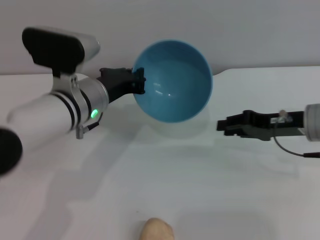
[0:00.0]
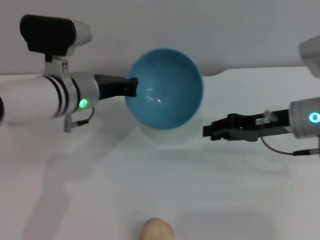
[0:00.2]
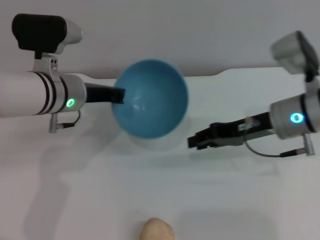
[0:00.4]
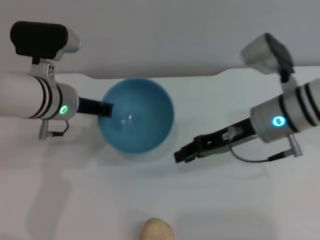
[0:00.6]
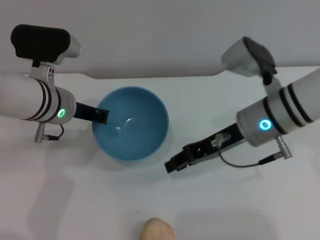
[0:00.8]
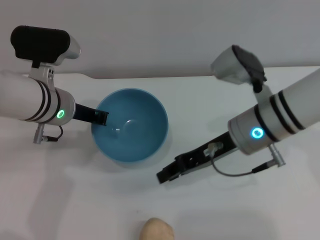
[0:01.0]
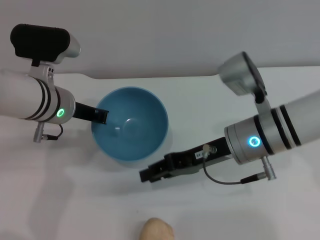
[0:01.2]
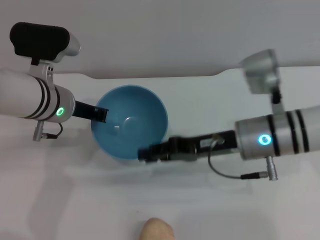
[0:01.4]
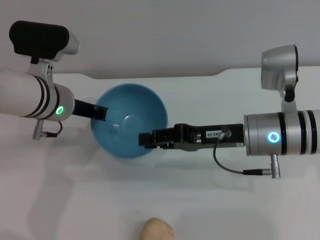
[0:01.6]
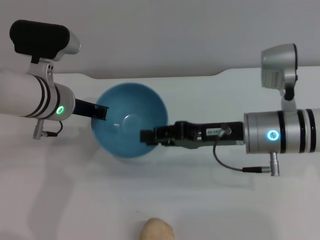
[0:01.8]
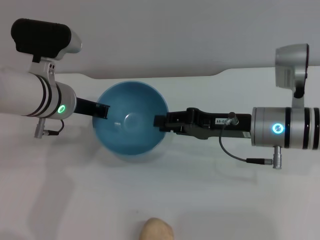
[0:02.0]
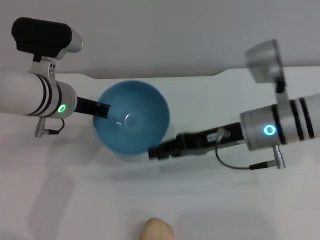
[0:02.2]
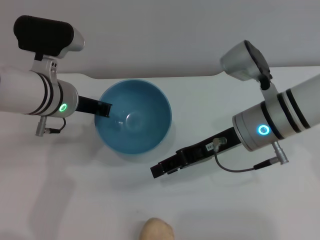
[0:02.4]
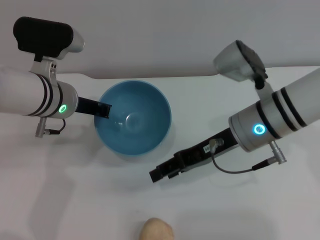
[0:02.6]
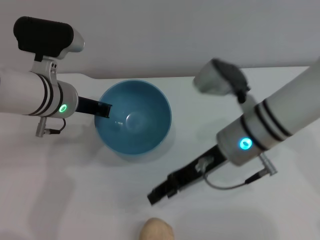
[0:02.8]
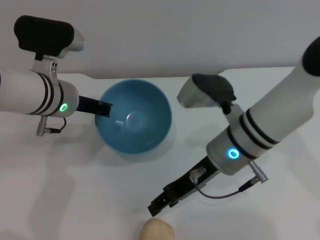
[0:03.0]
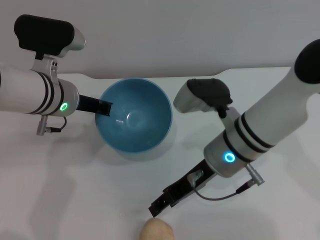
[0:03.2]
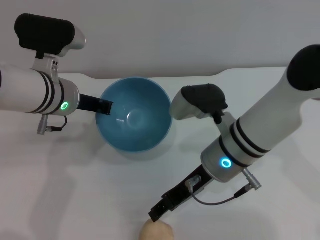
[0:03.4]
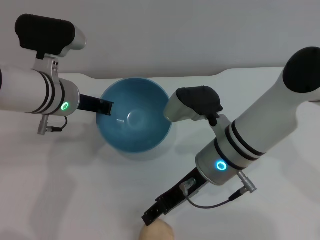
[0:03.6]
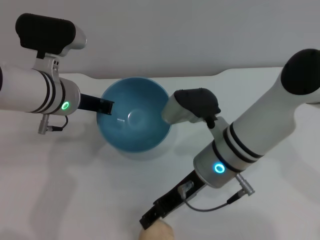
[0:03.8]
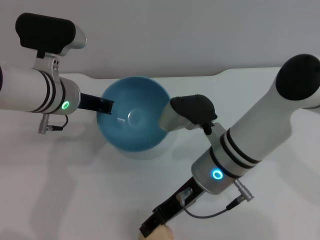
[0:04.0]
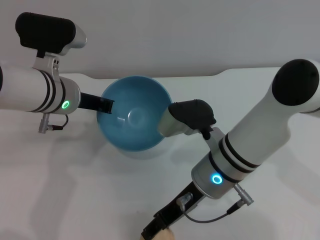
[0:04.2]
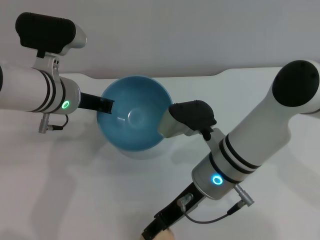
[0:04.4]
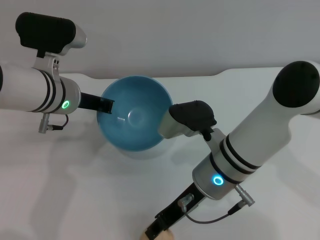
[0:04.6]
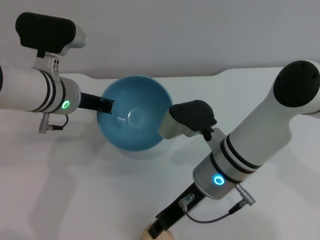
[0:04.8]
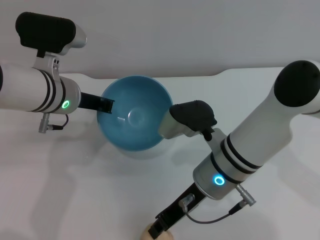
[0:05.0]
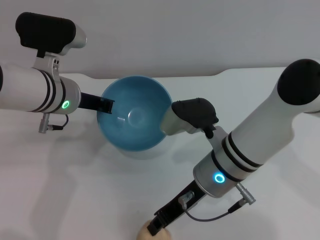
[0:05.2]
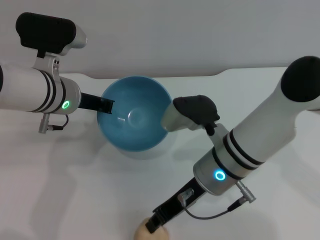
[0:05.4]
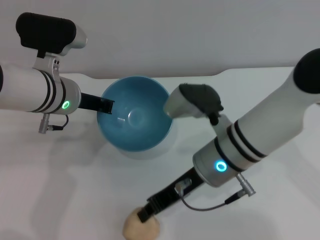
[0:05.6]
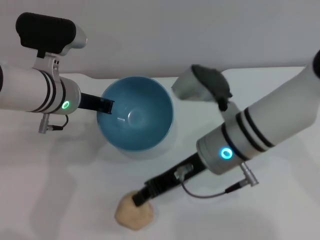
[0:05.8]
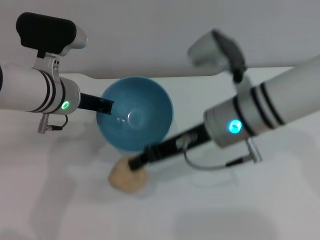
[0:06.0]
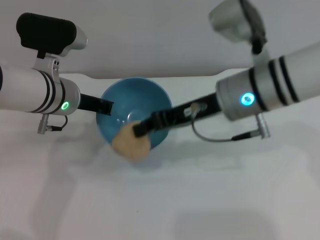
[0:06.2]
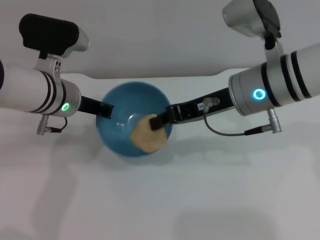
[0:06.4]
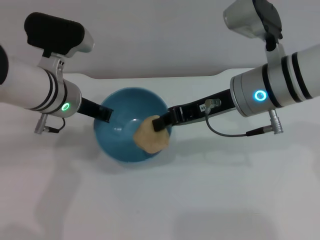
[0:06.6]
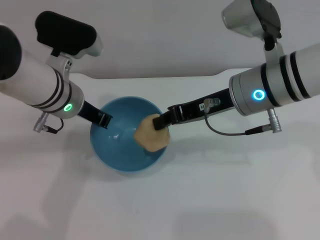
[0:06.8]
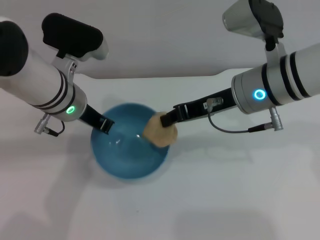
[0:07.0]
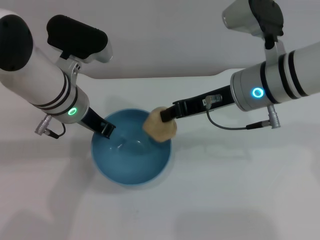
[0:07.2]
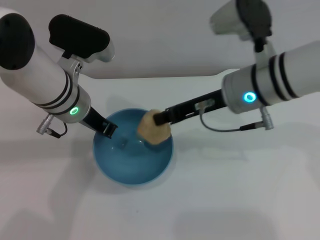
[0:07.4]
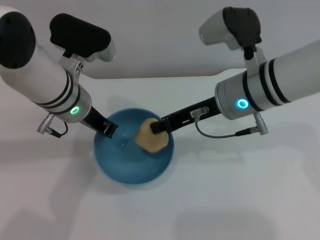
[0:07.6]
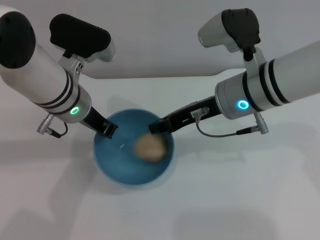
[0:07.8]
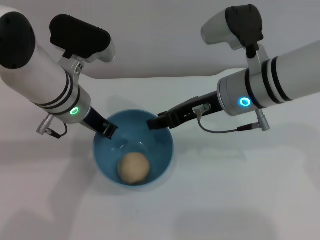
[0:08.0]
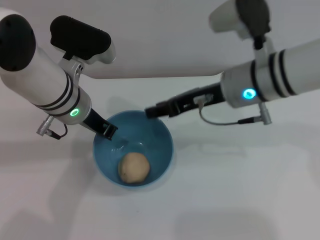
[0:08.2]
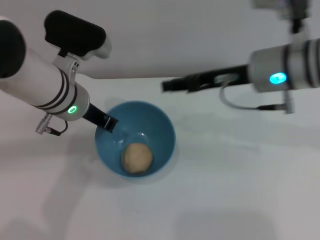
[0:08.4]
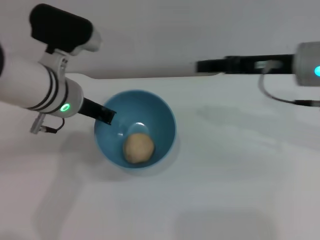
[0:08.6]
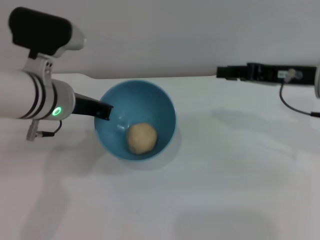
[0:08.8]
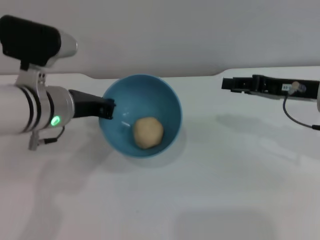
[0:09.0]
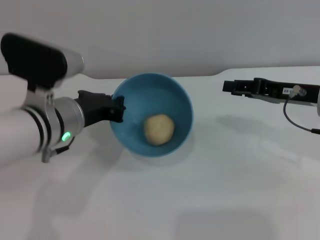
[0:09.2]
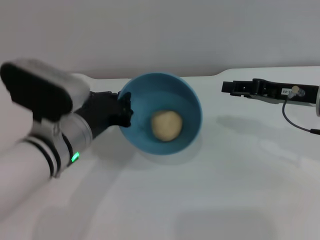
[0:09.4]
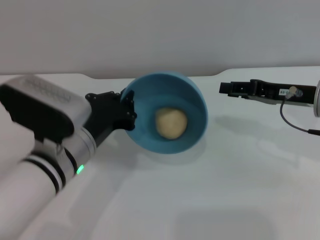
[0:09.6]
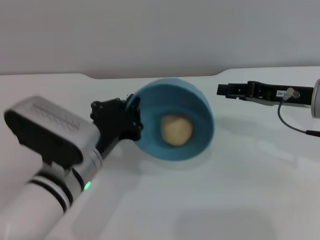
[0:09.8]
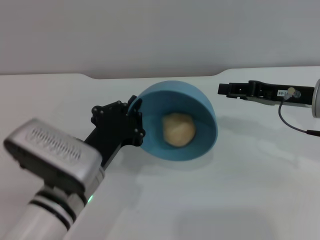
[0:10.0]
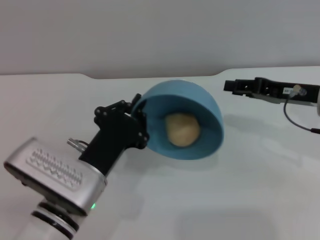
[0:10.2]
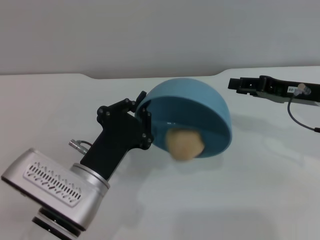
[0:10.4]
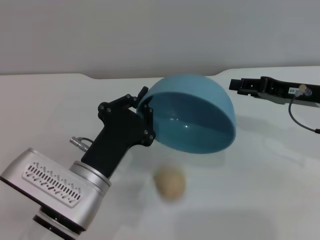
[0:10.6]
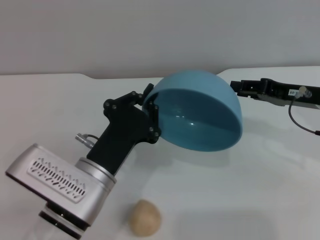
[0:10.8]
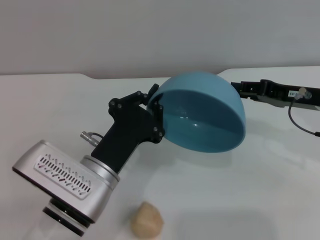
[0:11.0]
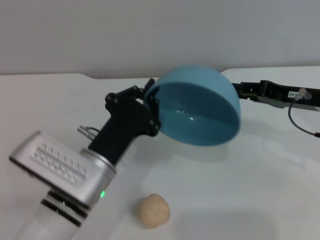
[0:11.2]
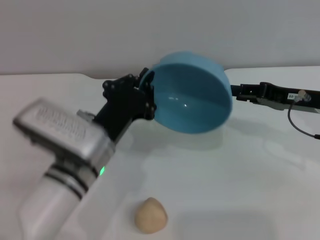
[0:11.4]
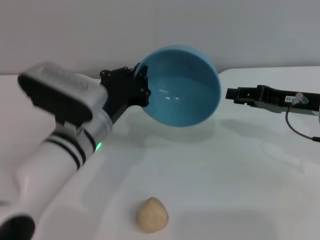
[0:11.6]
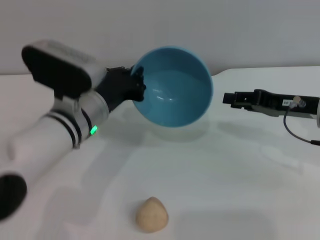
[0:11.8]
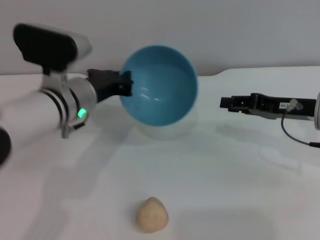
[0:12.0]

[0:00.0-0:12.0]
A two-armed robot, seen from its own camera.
Task of the whole recording: put the egg yolk pastry into the blue bowl and pour it out repeatedly.
Step, 0:01.0 to 0:05.8: Pick up the egg yolk pastry with the right gripper.
Step, 0:06.0 to 0:08.2: Place the egg yolk pastry into the bowl.
Step, 0:08.4 to 0:10.6: Pour the egg yolk pastry out of bowl.
0:00.0 to 0:01.6: The right gripper moves to the left, some 10 cm.
0:01.6 to 0:03.0: The right gripper heads to the left, covering about 5 cm, and opens its fingers.
0:03.0 to 0:04.4: The grippers make only small movements.
0:04.4 to 0:06.0: The right gripper shifts about 10 cm upward, and closes up.
0:07.6 to 0:09.0: The left gripper moves about 5 cm; the right gripper shifts approximately 15 cm to the right, and opens its fingers.
0:09.0 to 0:10.4: The left gripper travels backward and downward by roughly 15 cm.
0:10.4 to 0:12.0: The left gripper goes some 15 cm forward and upward.

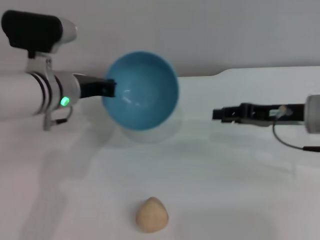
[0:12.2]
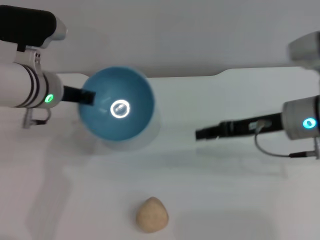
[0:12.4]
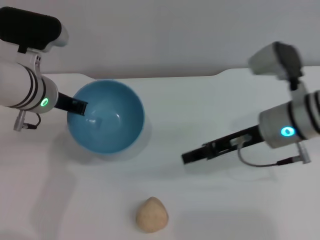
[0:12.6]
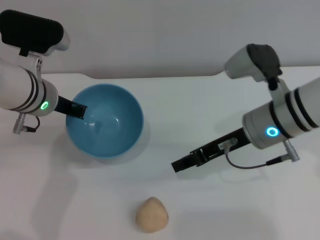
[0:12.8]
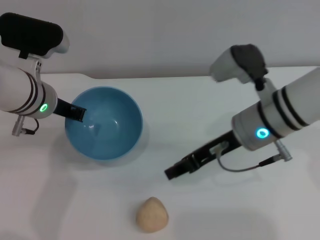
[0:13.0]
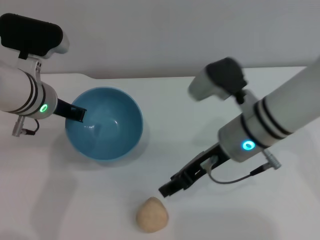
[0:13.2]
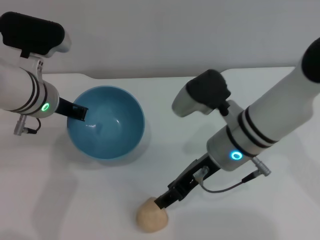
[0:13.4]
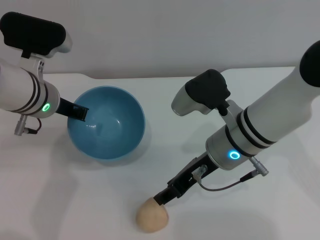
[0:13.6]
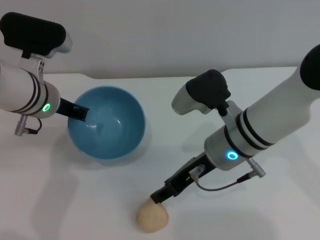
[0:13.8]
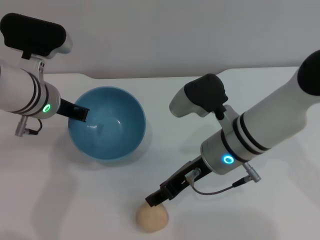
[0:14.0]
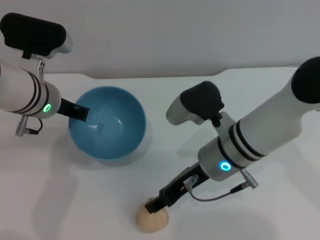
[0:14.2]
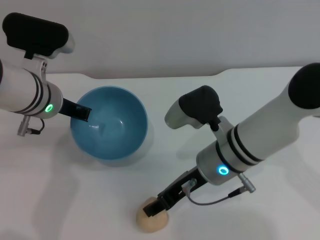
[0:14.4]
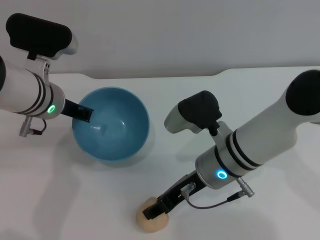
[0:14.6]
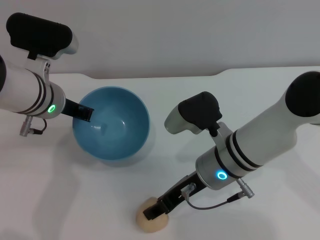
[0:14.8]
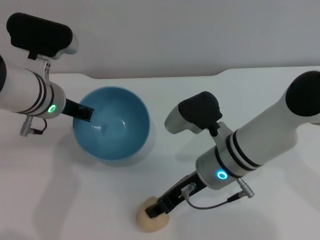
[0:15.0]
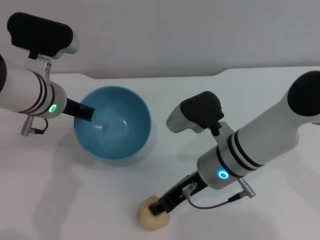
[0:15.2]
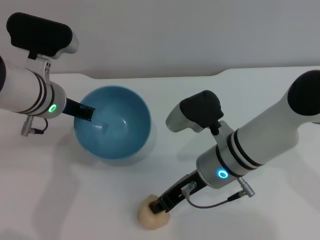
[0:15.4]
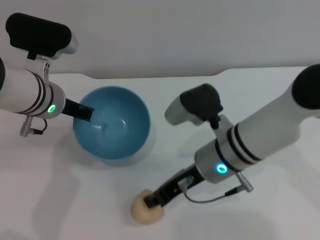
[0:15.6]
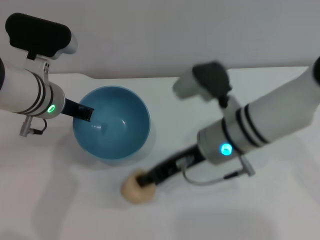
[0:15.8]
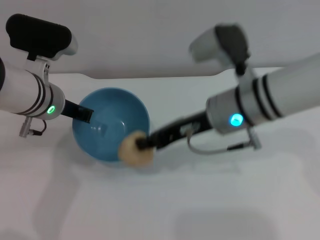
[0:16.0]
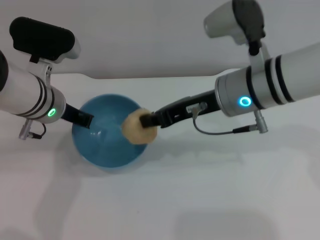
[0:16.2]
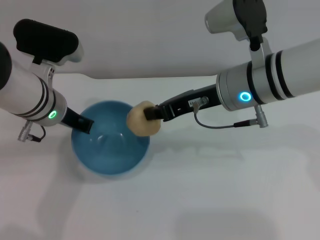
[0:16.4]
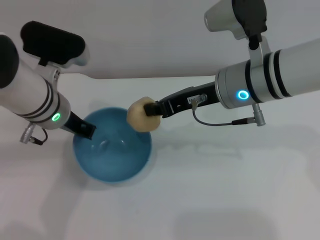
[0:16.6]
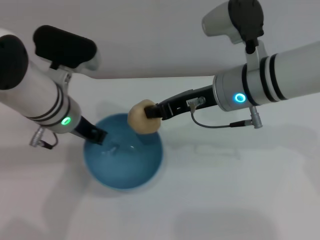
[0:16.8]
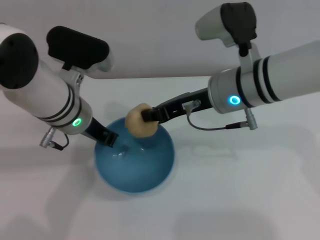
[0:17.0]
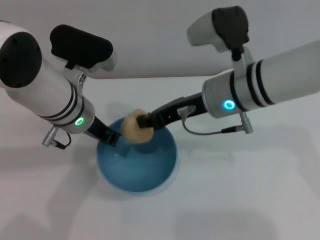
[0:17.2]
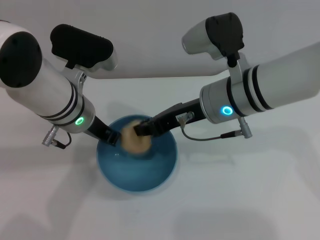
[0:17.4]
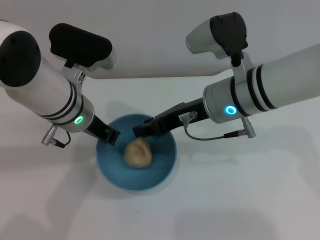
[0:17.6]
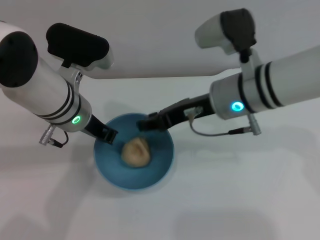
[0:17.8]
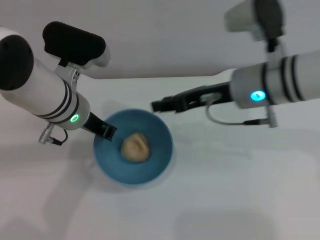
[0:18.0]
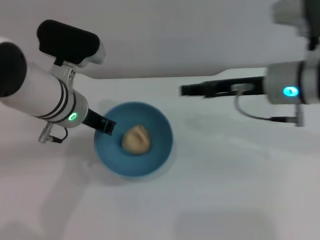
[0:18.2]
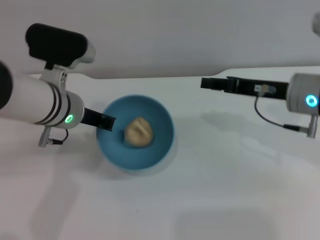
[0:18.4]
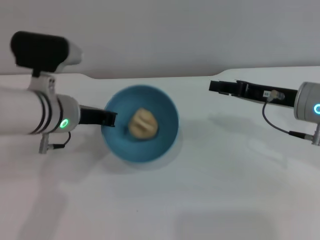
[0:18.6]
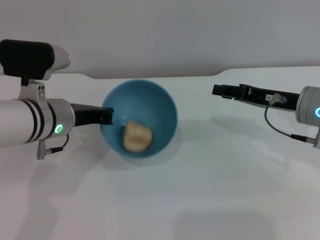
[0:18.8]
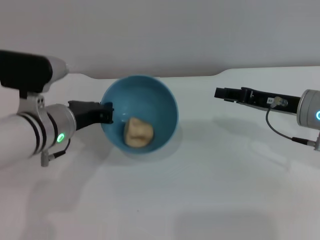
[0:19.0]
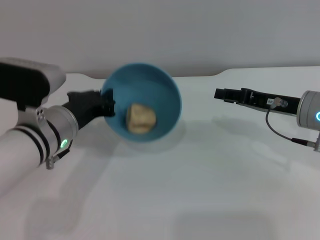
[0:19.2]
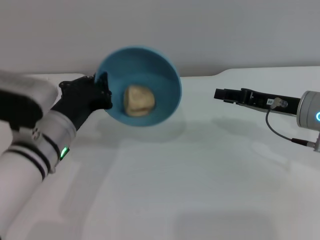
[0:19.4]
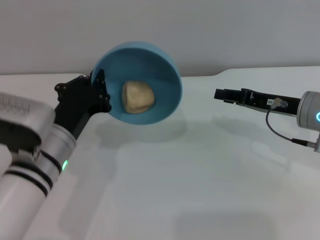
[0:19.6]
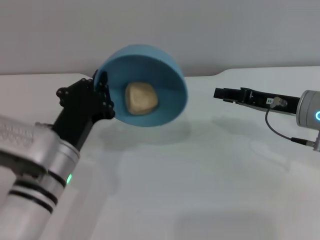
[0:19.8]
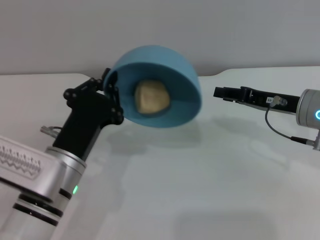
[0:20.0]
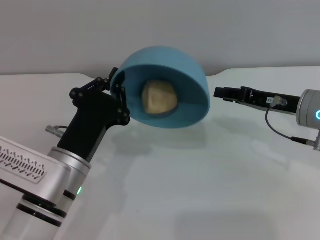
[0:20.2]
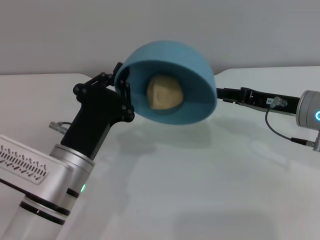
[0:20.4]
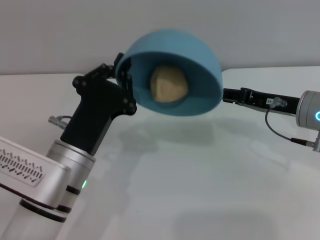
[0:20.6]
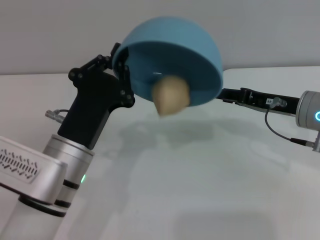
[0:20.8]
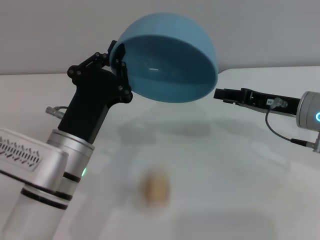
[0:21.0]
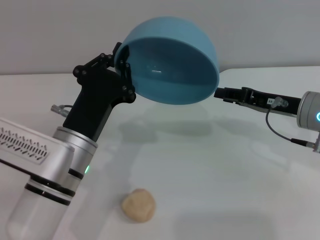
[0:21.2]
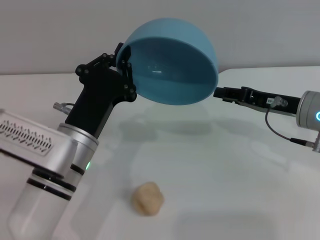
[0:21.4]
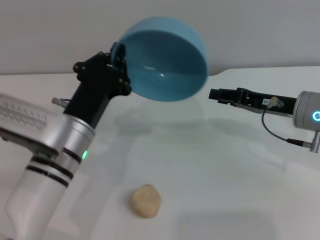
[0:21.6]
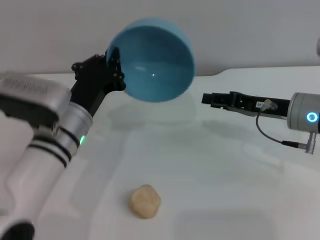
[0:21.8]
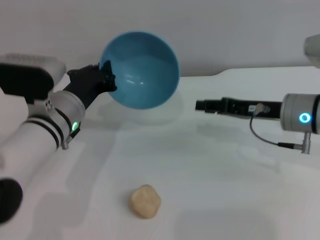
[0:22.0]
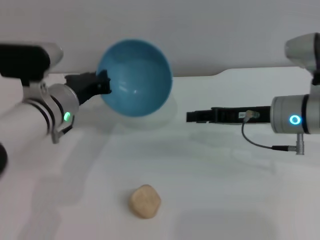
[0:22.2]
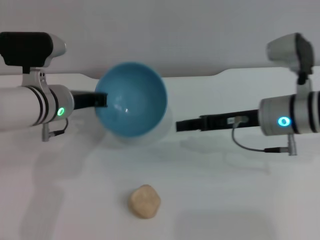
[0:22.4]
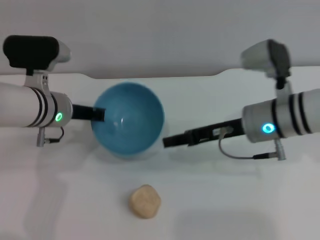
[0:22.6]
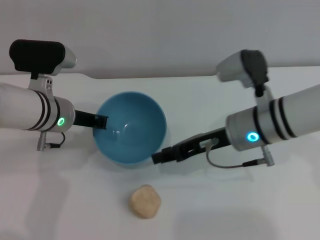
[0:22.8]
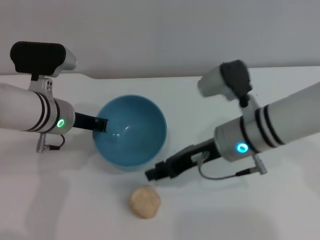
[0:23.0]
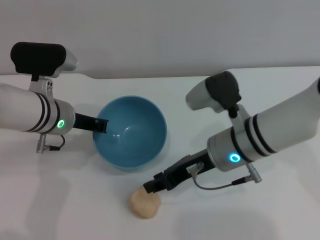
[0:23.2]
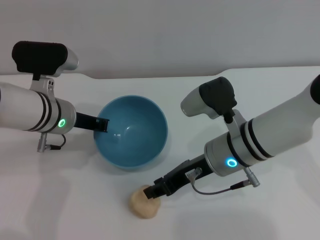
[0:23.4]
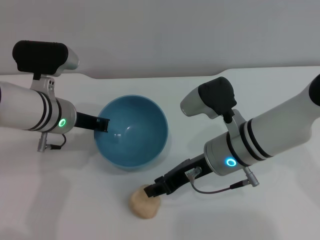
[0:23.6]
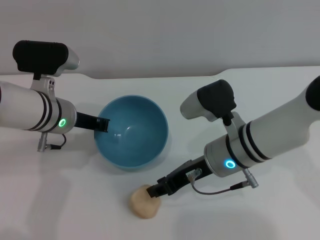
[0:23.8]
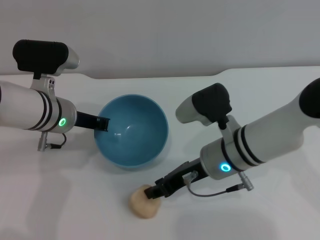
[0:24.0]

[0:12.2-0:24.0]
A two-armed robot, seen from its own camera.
Task of the whole recording: put the egg yolk pastry into the blue bowl and pour it out repeatedly.
Step, 0:12.2 to 0:16.0: Pick up the egg yolk pastry with the right gripper.
Step, 0:16.2 to 0:17.4: Place the egg yolk pastry into the bowl.
Step, 0:17.6 to 0:21.2: Pour the egg yolk pastry out of bowl.
0:12.2 to 0:13.6: The right gripper goes approximately 15 cm to the left.
0:13.6 to 0:15.2: The grippers move only a little.
0:15.2 to 0:16.6: The right gripper heads upward, covering roughly 10 cm, and closes.
0:16.6 to 0:18.2: The right gripper heads to the right, covering roughly 5 cm, and opens.
0:18.2 to 0:19.6: The right gripper heads to the right and downward, covering about 10 cm, while the left gripper is displaced backward and downward by some 10 cm.
0:21.0 to 0:22.6: The left gripper goes about 15 cm forward, while the right gripper moves to the left, about 10 cm.
0:22.6 to 0:24.0: The right gripper heads to the left, covering approximately 5 cm.
